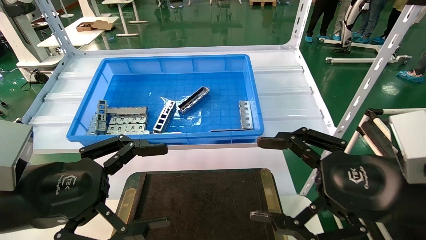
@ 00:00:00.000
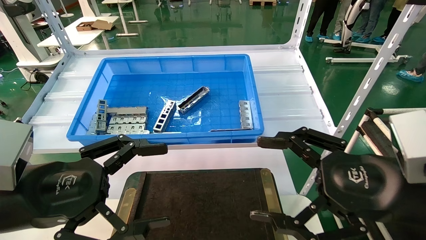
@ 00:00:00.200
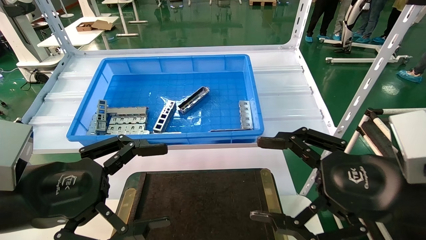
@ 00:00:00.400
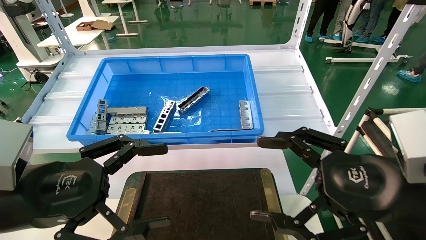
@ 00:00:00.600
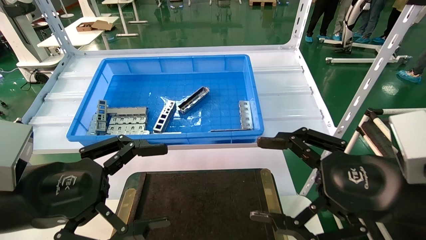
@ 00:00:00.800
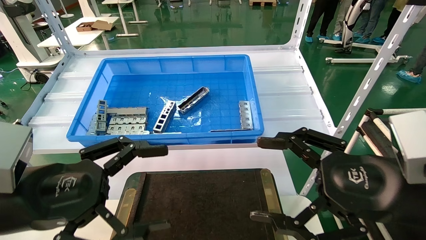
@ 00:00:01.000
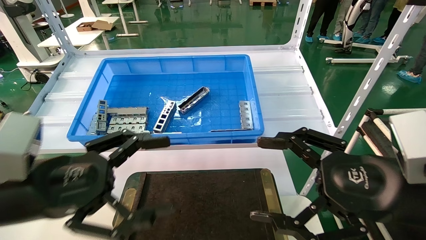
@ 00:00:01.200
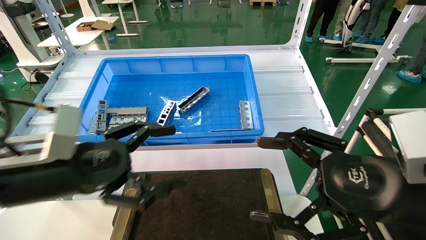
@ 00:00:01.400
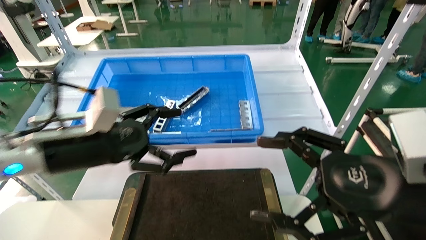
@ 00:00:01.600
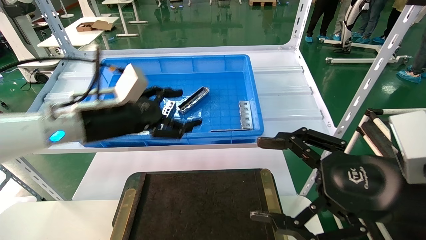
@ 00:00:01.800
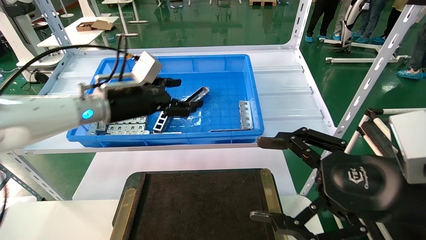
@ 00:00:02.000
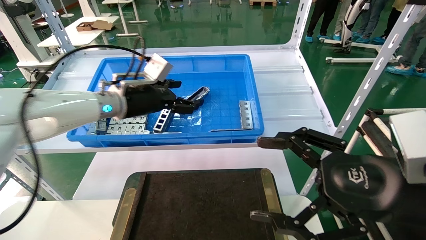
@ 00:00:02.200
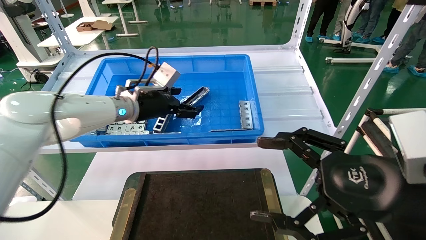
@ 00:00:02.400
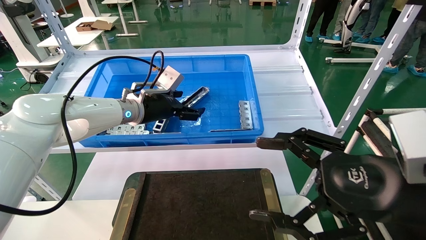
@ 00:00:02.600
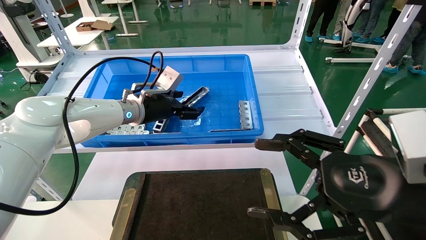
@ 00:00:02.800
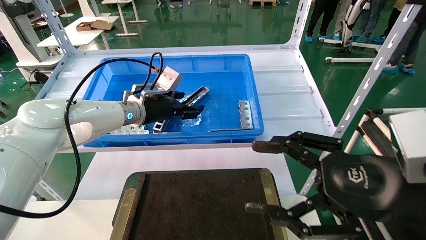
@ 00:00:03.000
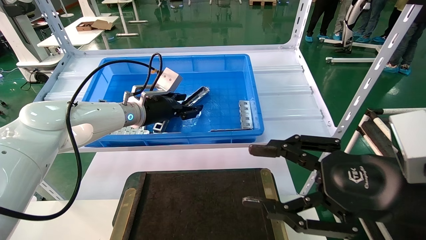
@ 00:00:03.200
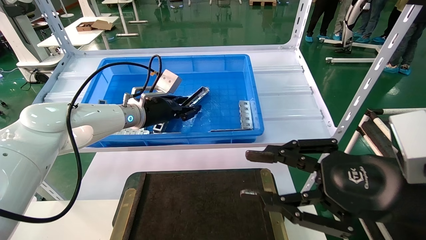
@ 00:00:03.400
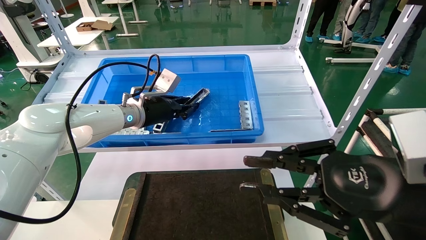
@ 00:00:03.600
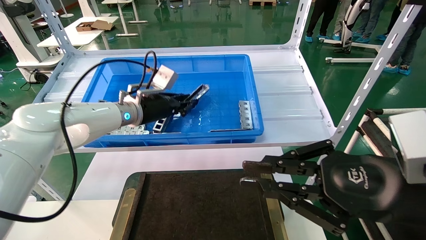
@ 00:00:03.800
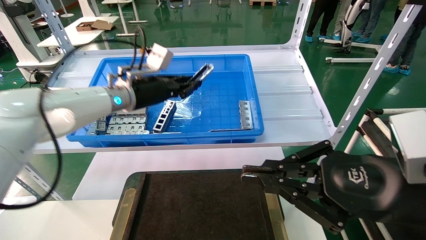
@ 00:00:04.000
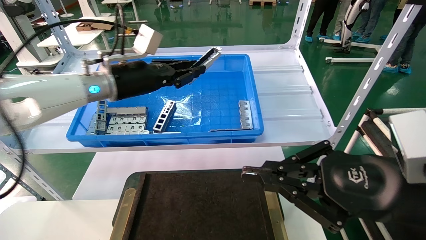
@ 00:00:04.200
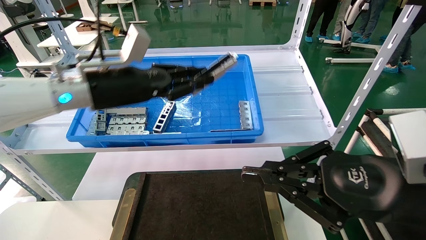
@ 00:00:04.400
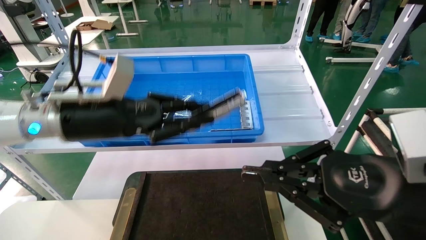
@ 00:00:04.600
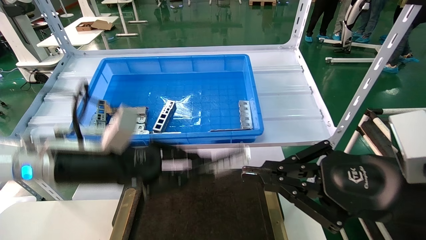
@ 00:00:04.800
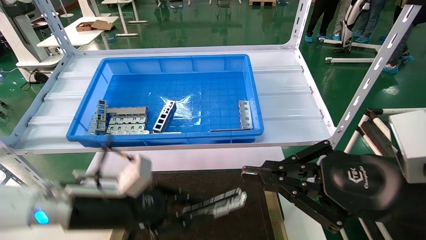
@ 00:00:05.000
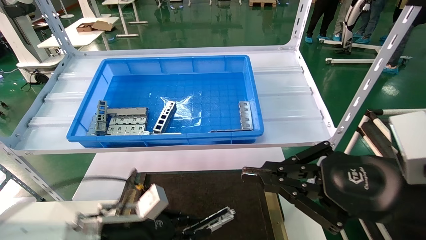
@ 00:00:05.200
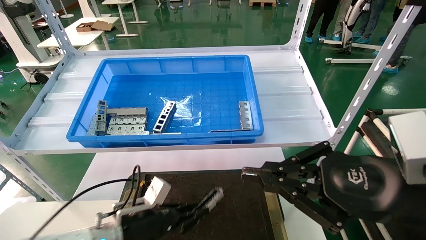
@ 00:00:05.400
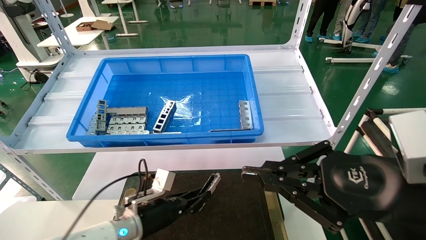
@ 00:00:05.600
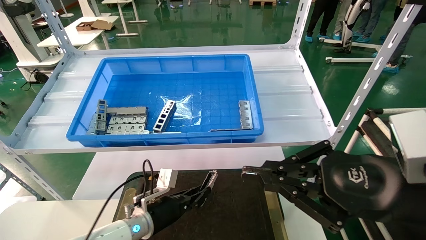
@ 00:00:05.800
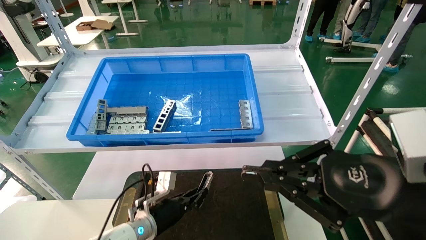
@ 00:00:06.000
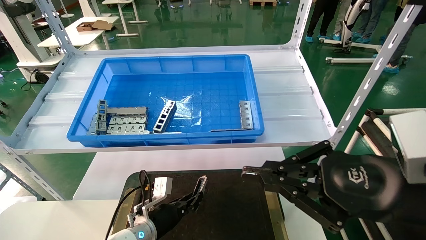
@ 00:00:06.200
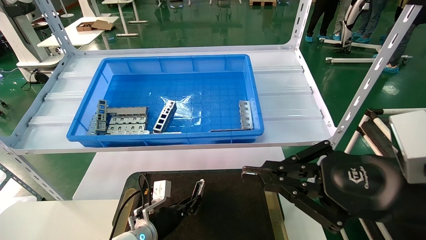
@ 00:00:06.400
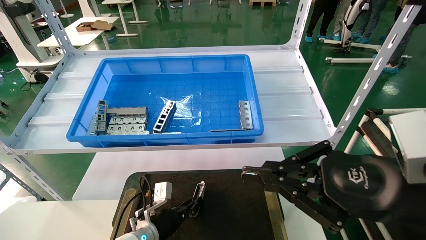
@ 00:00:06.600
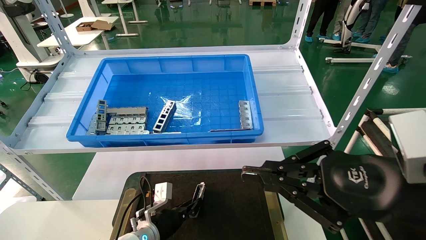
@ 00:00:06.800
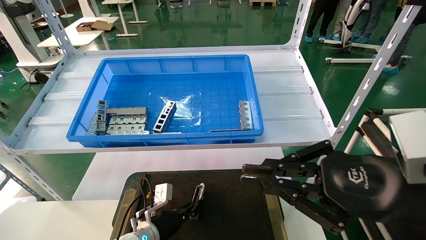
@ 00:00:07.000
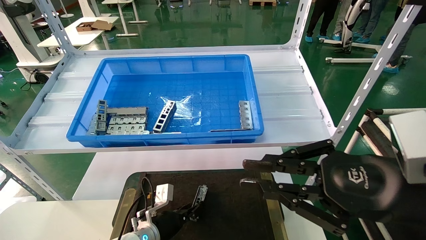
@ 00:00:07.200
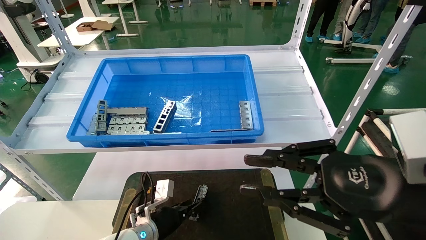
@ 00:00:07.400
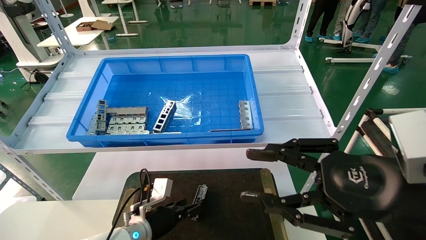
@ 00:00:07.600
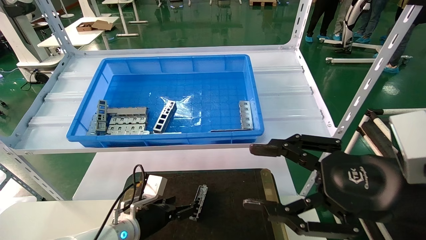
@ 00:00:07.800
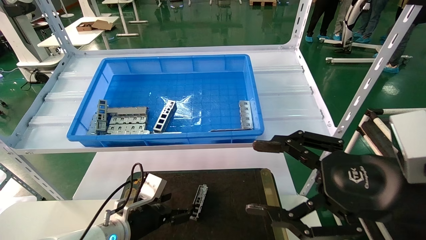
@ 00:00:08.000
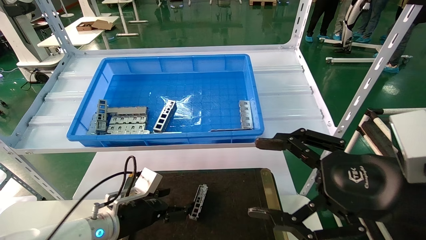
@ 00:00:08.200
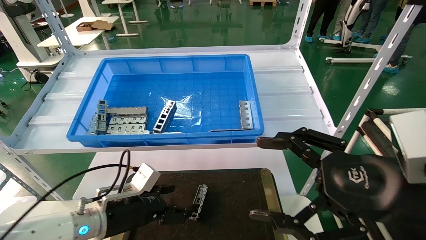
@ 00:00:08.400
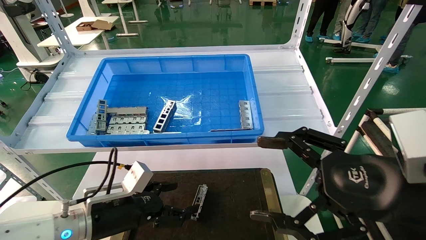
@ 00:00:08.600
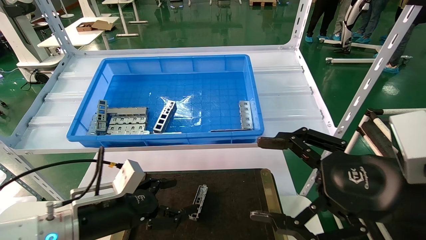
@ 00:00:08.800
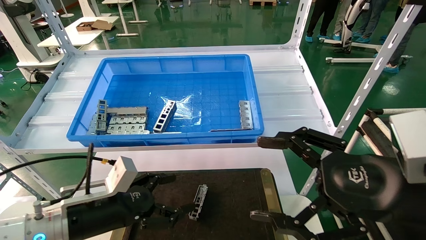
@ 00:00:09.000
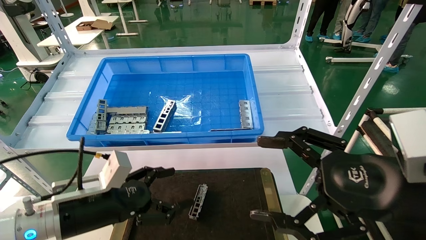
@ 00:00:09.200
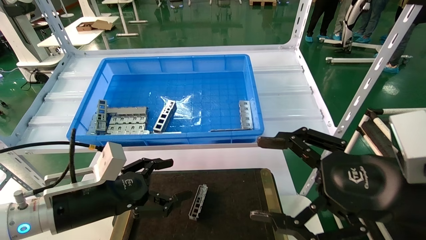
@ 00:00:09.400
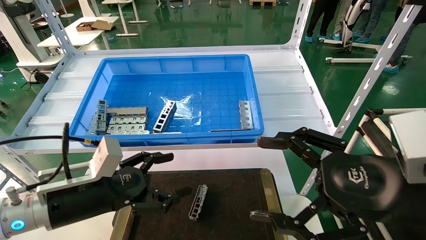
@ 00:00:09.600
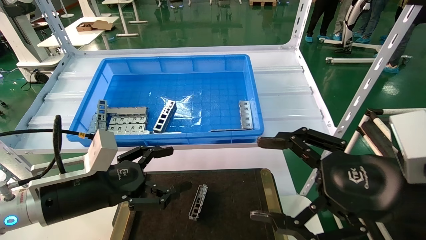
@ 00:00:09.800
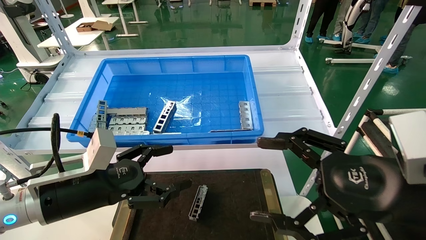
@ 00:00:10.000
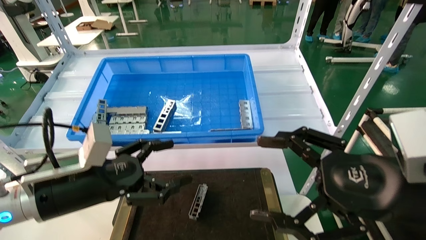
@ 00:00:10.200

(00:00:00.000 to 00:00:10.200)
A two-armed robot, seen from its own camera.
Task of the whole recording: Grasp the part with one hand and place it on the black container.
Step, 00:00:01.400 - 00:00:03.600: Pick up the front USB bracket from the feeding area.
Step, 00:00:03.800 - 00:00:07.000: Place the front USB bracket into the box.
00:00:00.000 - 00:00:01.400: The left gripper goes about 5 cm forward.
00:00:01.400 - 00:00:03.000: The left gripper heads forward, covering about 25 cm.
00:00:03.000 - 00:00:04.400: The left gripper is displaced backward and upward by about 10 cm, and closes up; the right gripper closes its fingers.
00:00:04.400 - 00:00:05.800: The left gripper is displaced downward by some 30 cm.
00:00:05.800 - 00:00:07.200: The grippers move only a little.
00:00:07.200 - 00:00:08.800: The right gripper opens. Meanwhile the left gripper goes approximately 20 cm upward, backward and to the left, and opens its fingers.
00:00:08.800 - 00:00:10.200: The left gripper heads upward, covering approximately 10 cm.
